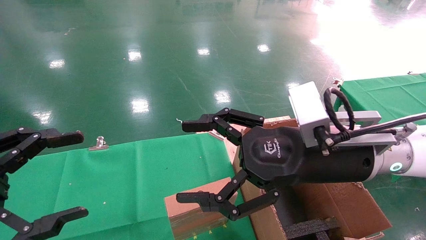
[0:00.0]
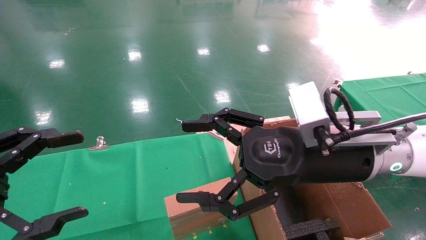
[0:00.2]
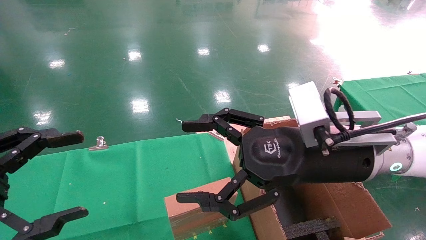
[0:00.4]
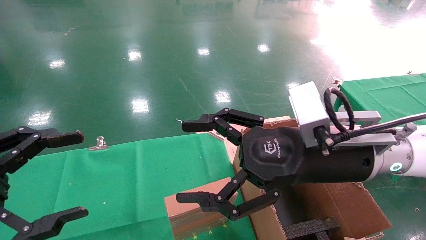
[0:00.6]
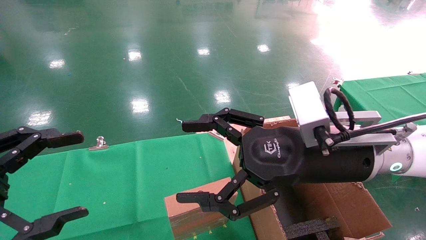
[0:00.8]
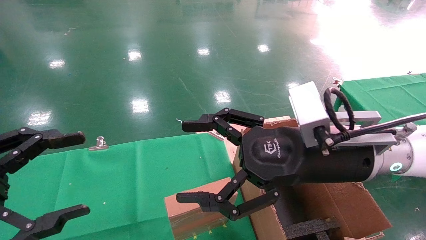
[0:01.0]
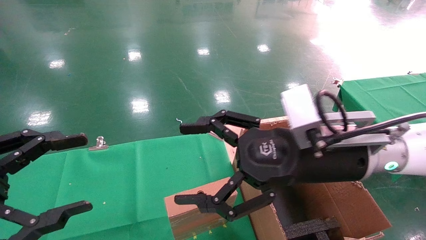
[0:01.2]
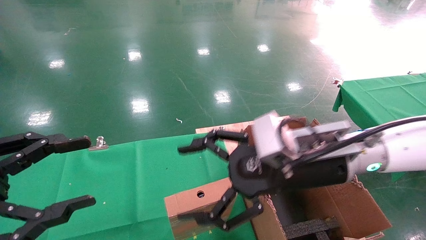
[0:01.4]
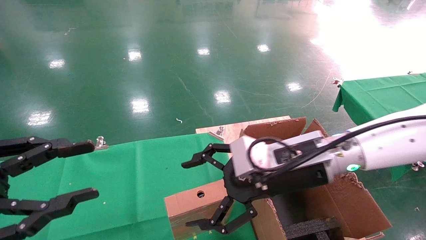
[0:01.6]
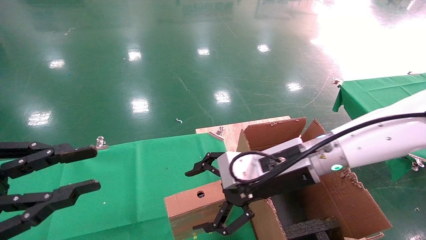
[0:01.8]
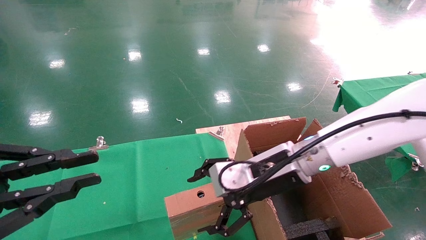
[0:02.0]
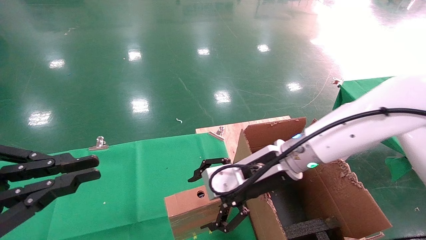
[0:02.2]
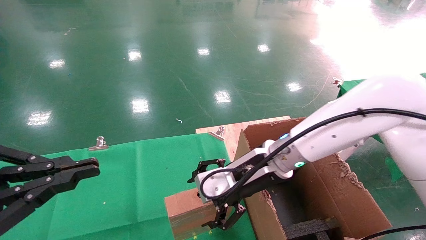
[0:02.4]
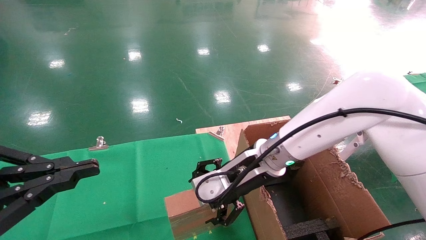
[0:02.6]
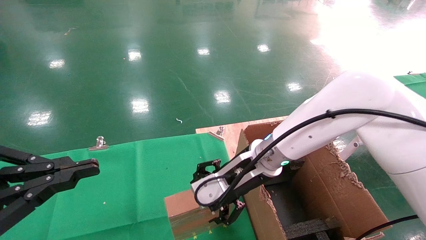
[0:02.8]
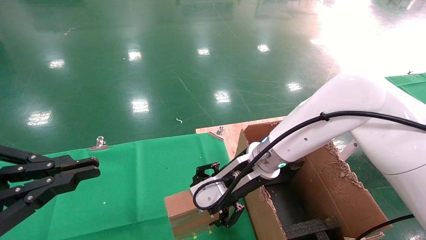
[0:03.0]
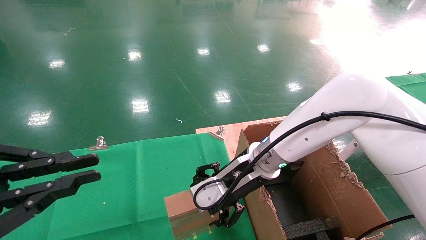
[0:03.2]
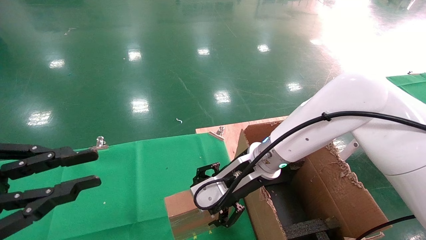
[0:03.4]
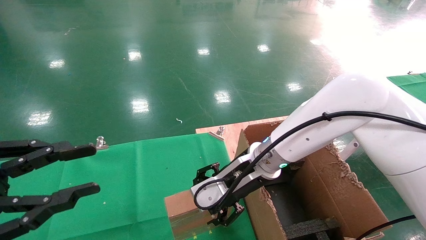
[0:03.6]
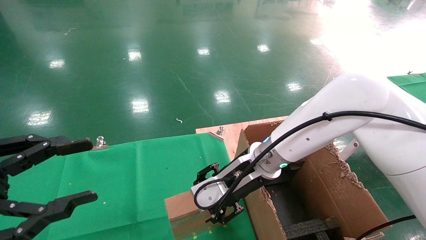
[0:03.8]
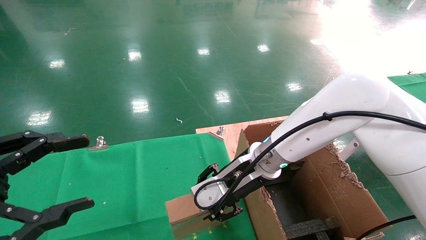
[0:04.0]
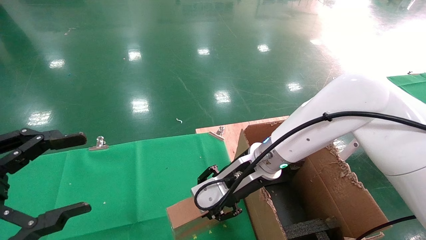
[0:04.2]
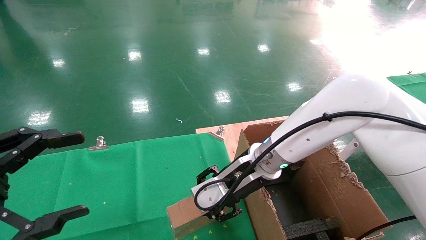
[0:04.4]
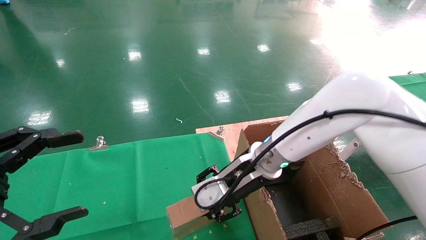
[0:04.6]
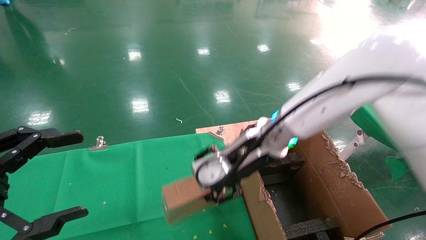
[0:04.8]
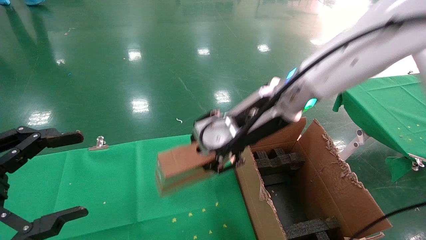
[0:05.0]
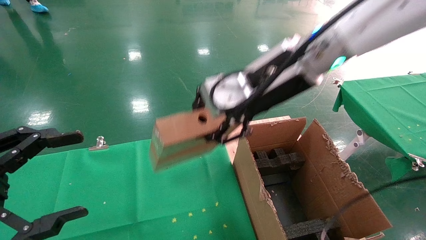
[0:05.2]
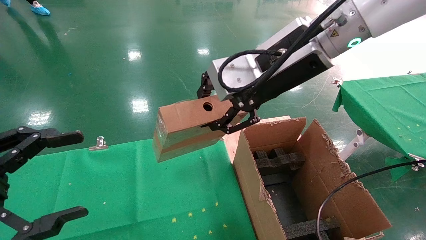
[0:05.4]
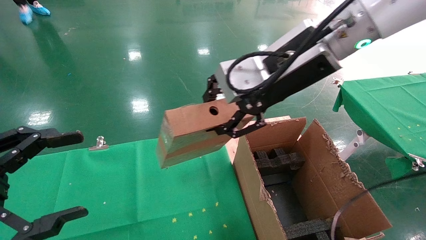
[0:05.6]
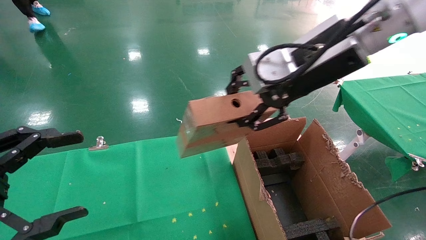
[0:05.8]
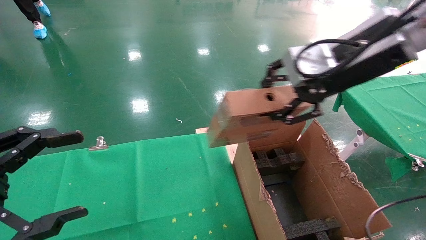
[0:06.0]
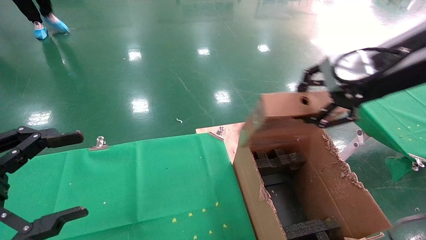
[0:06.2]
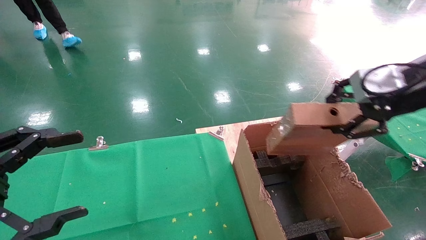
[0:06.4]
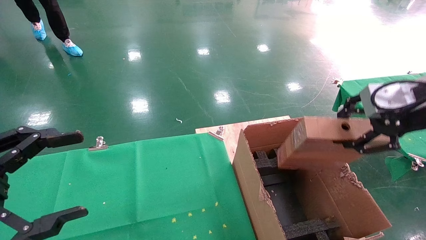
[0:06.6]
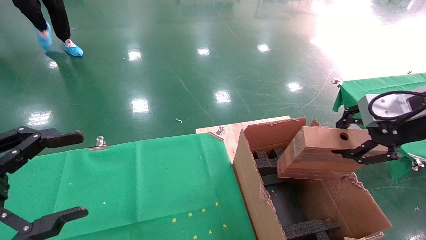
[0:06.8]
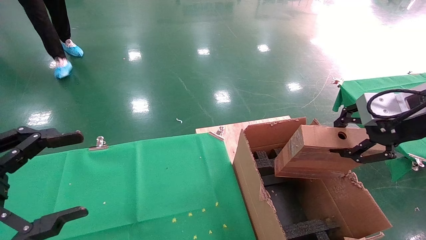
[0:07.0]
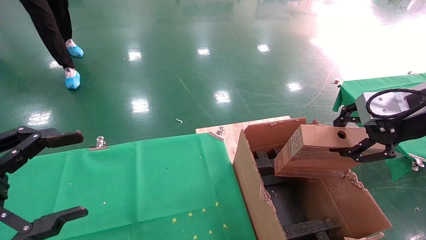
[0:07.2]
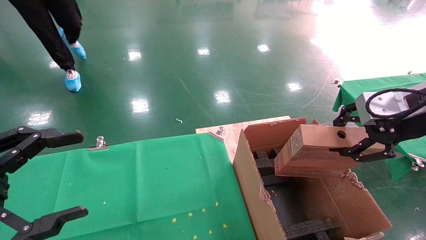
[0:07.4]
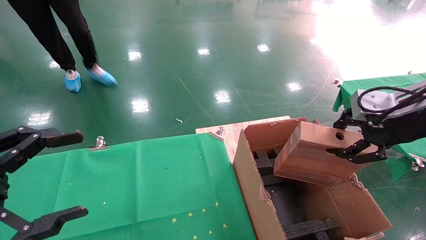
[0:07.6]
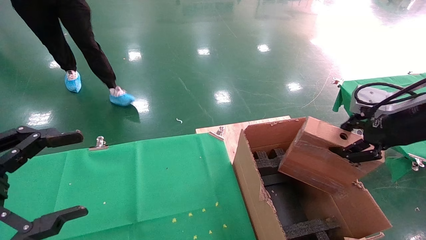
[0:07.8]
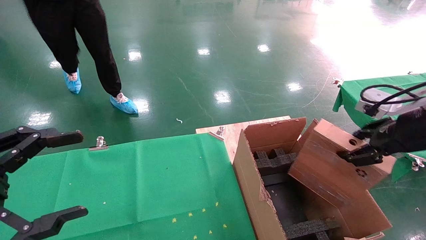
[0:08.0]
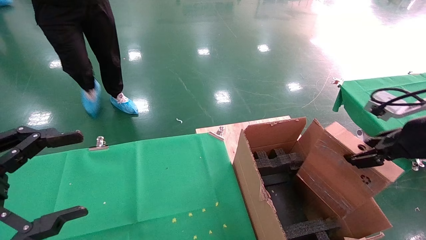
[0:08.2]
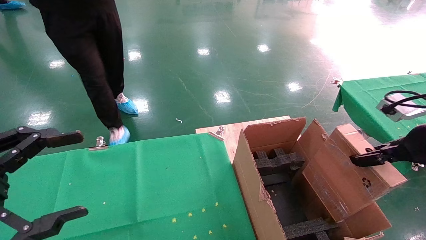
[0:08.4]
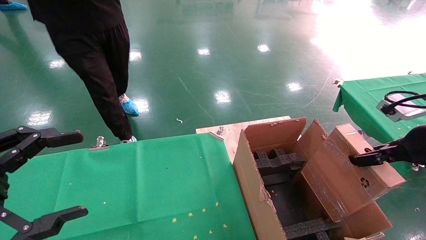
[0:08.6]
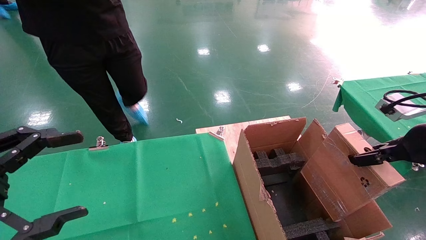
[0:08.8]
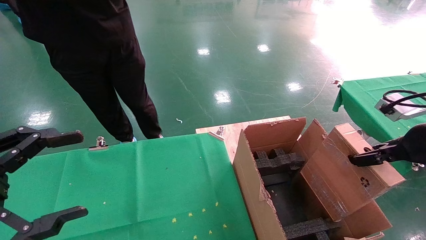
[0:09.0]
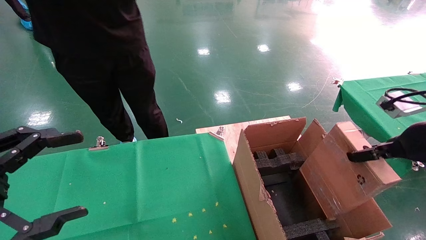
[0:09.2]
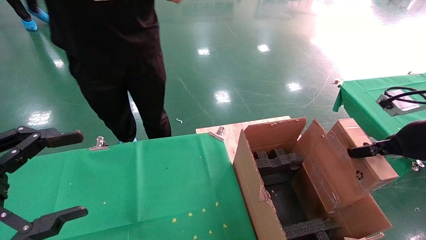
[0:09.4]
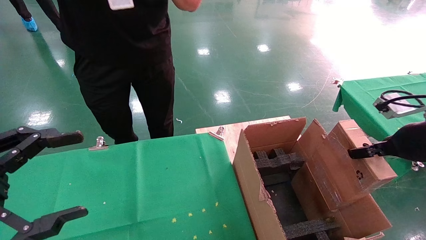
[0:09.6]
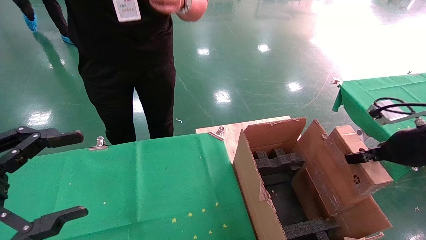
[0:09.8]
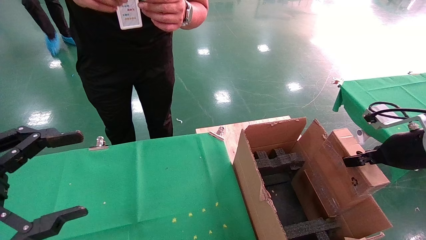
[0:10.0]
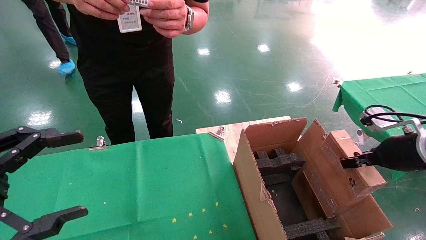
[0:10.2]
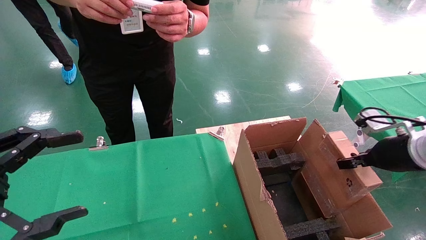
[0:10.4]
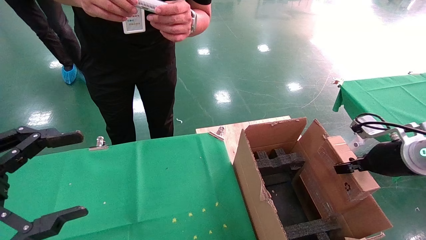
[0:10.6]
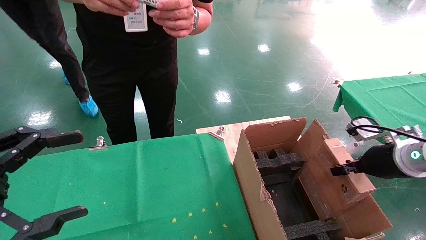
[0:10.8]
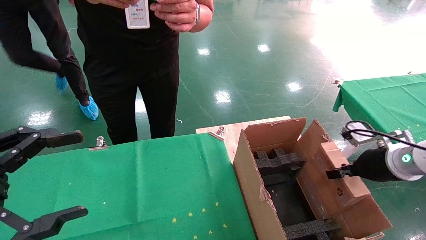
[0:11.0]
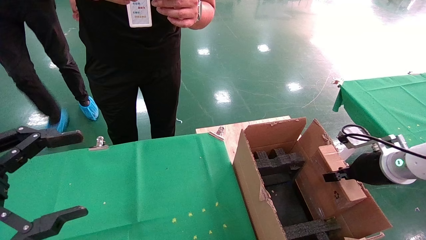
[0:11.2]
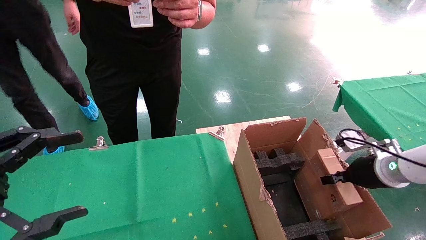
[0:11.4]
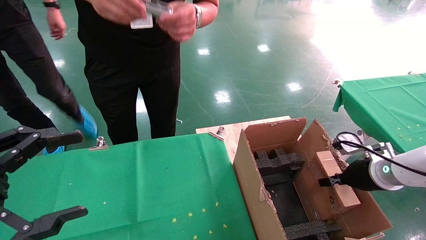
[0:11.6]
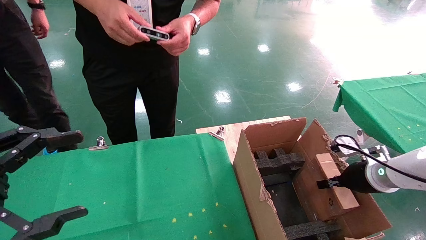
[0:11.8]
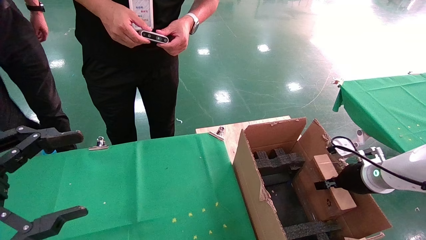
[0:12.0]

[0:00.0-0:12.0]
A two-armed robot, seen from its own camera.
Task of the whole recording: using a robotic arm to pick up a cardboard box and palace it the carton.
Step, 0:01.4 to 0:04.2: Pick up the mouse and the power cord paper box.
0:00.0 to 0:01.6: The left gripper closes its fingers. Meanwhile the right gripper moves about 5 cm.
0:01.6 to 0:03.0: The left gripper closes up, while the right gripper is displaced forward and to the left by about 10 cm.
0:03.0 to 0:04.4: The left gripper opens up; the right gripper closes up.
0:04.4 to 0:06.0: The right gripper goes roughly 25 cm upward and to the right.
0:06.0 to 0:07.6: The right gripper shifts approximately 15 cm to the right and downward.
0:07.6 to 0:09.0: The right gripper goes approximately 5 cm downward.
0:09.0 to 0:10.4: The right gripper shifts approximately 10 cm downward and forward.
0:10.4 to 0:12.0: The right gripper goes approximately 10 cm downward and forward.

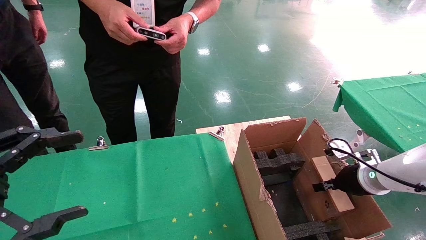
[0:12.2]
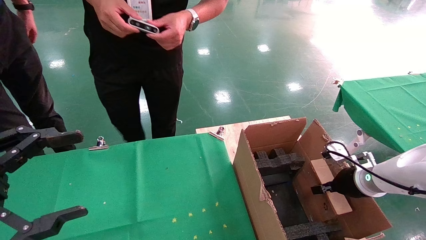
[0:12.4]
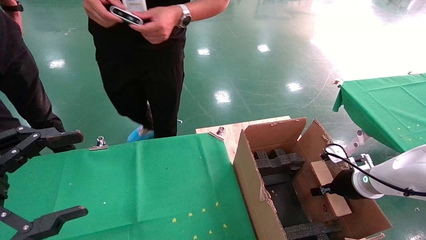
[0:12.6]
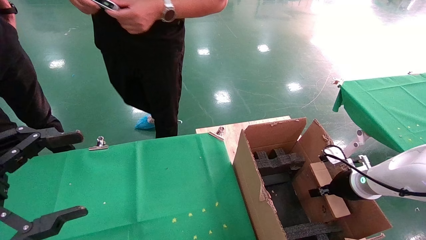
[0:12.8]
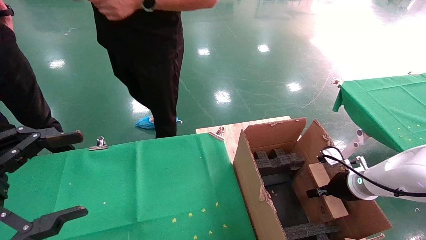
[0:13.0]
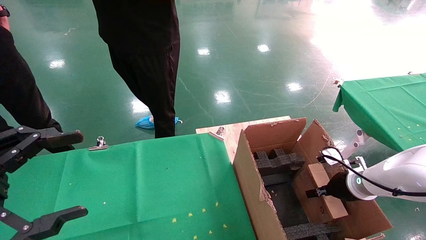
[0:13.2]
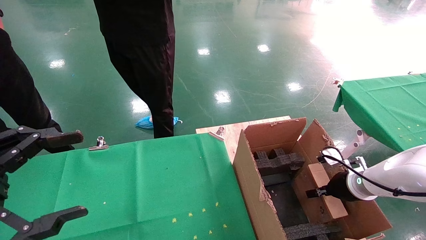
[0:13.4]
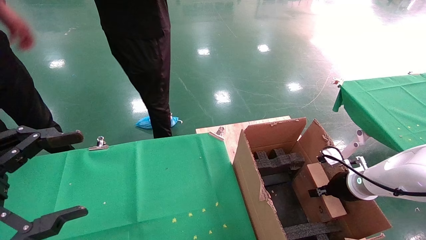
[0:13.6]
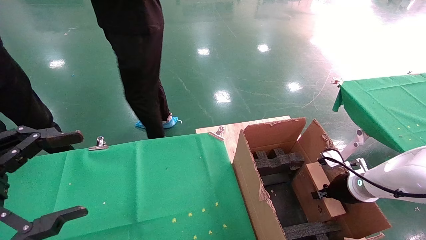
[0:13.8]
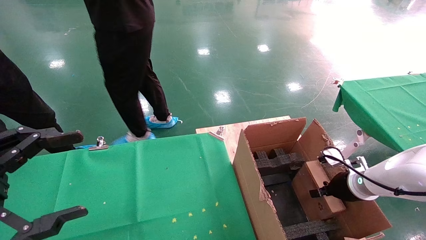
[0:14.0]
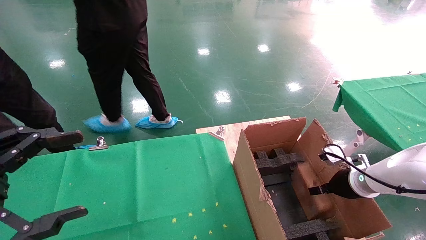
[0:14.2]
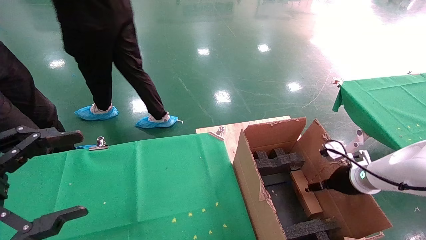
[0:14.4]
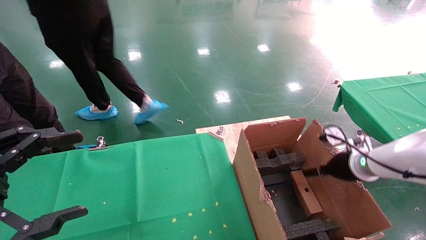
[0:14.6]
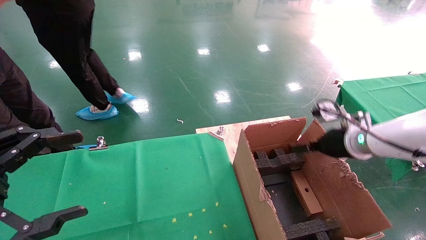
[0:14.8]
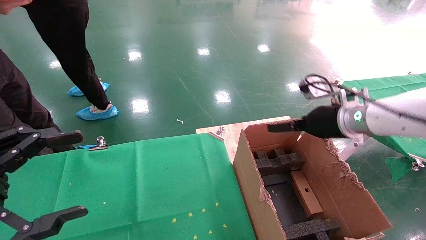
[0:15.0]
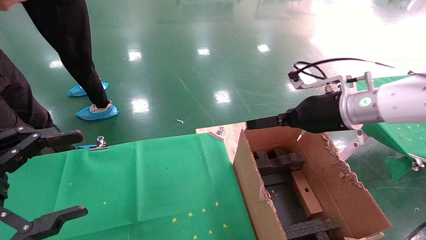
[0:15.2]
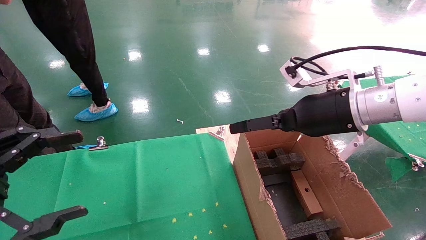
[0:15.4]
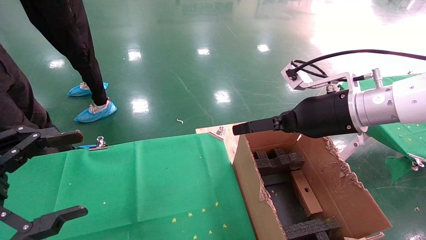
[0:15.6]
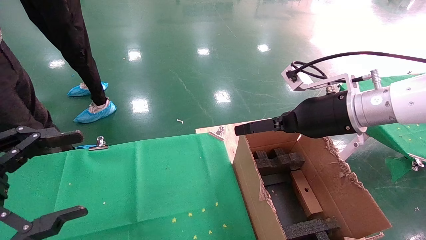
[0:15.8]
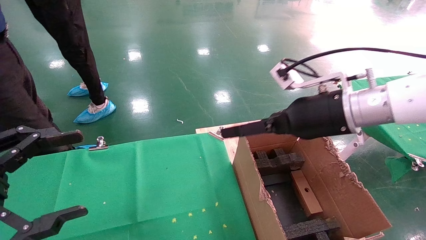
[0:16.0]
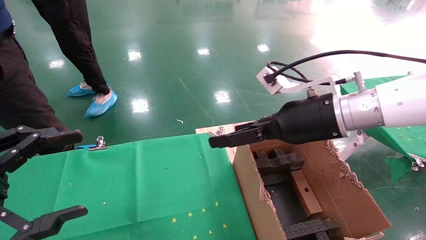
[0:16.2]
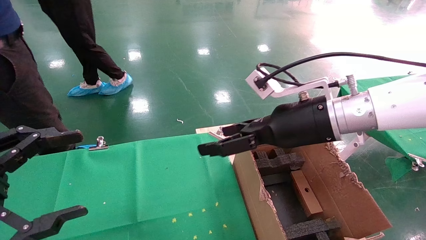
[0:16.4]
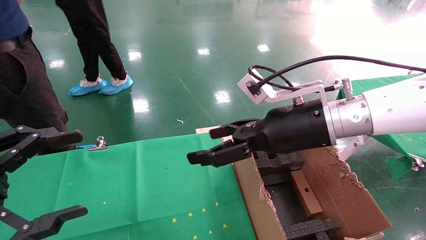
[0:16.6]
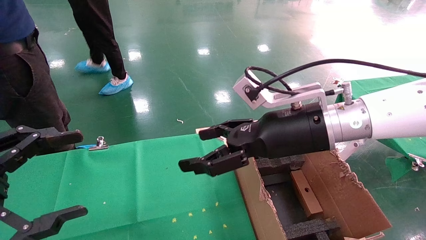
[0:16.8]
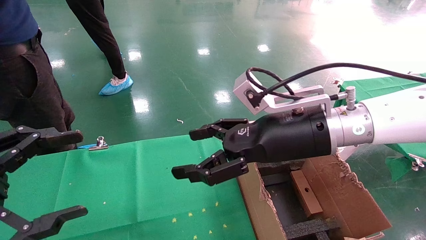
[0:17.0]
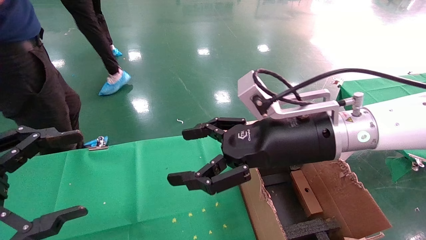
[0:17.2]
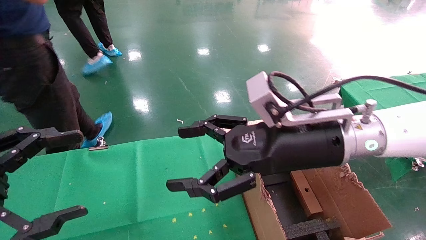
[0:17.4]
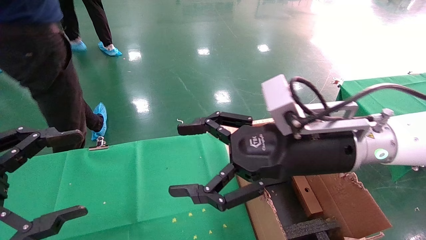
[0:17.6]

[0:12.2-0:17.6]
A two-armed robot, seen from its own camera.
Task of the whole recording: using a robotic arm to pick up a cardboard box and palace it the carton.
0:12.2 to 0:13.6: The grippers stay close to where they were, moving slightly.
0:13.6 to 0:15.0: The right gripper moves upward and to the left, roughly 20 cm, and opens its fingers.
0:15.0 to 0:16.2: The right gripper shifts approximately 10 cm to the left and backward.
0:16.2 to 0:17.6: The right gripper heads backward, covering roughly 5 cm.
